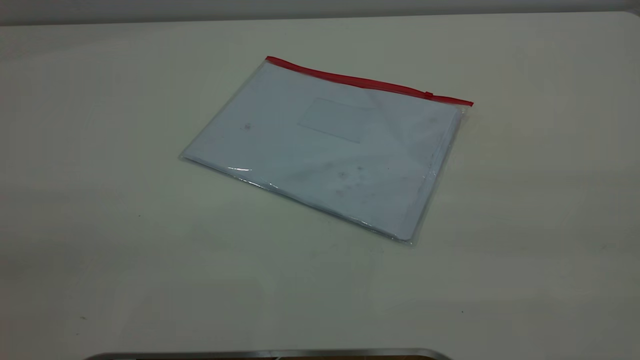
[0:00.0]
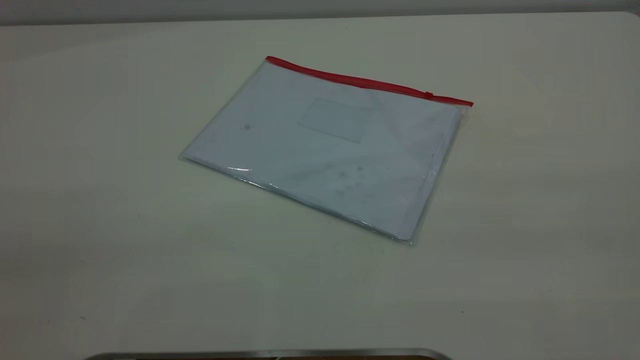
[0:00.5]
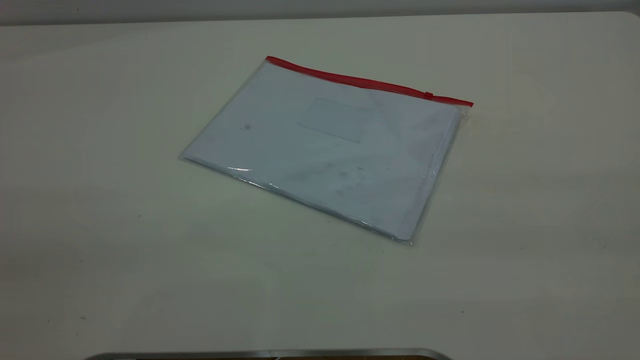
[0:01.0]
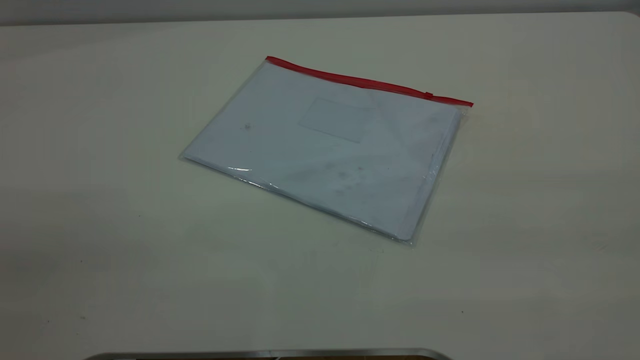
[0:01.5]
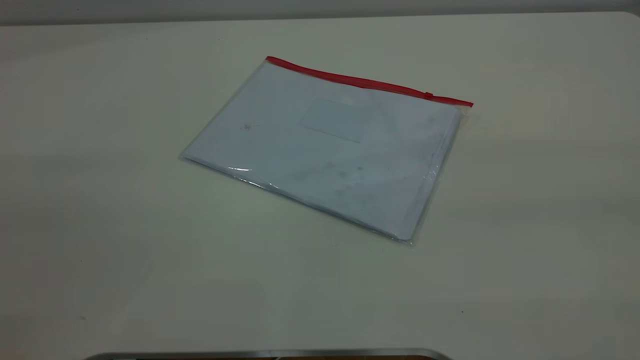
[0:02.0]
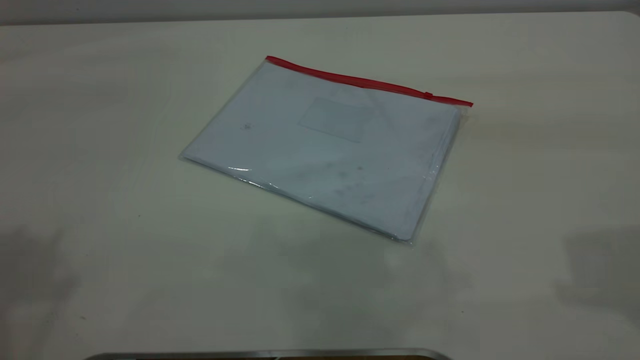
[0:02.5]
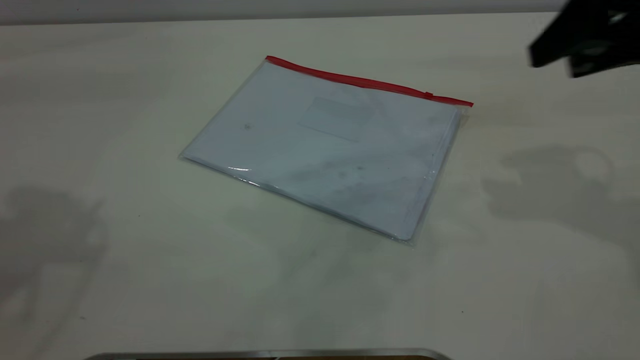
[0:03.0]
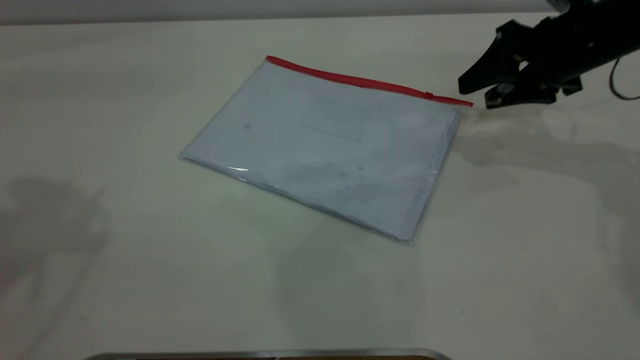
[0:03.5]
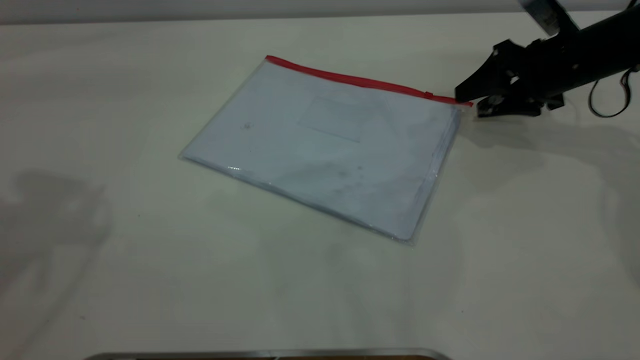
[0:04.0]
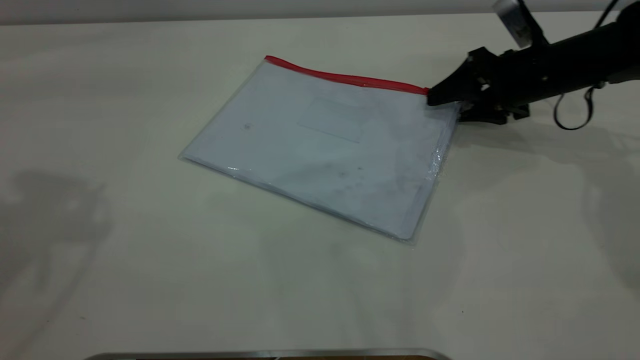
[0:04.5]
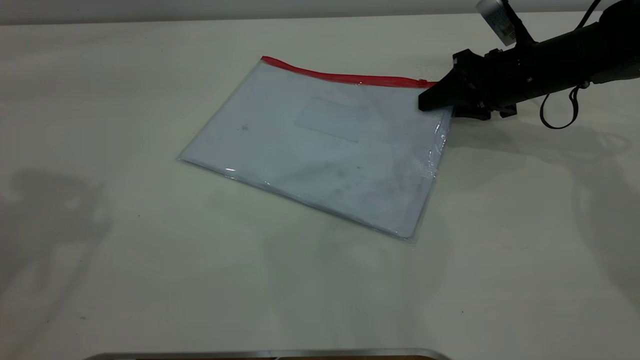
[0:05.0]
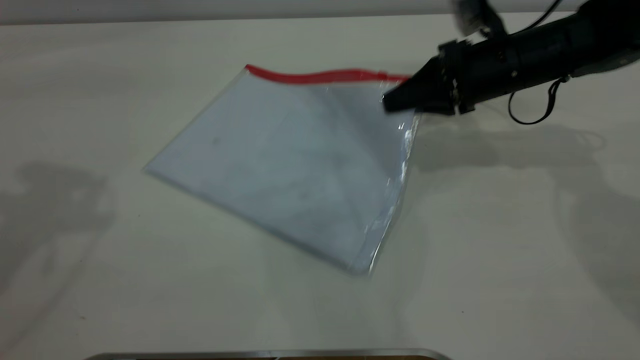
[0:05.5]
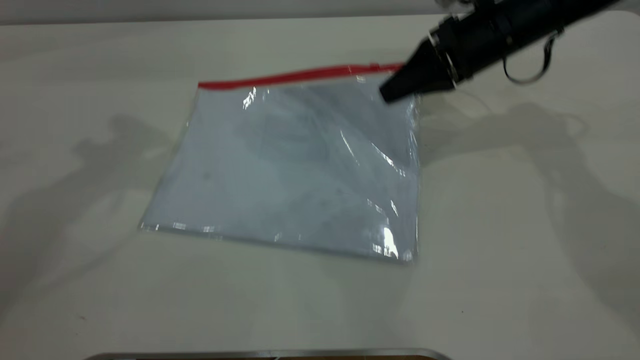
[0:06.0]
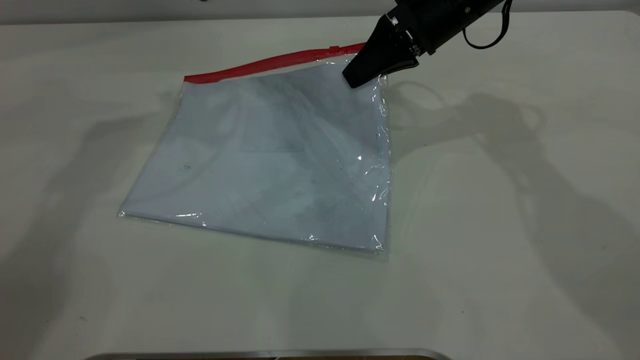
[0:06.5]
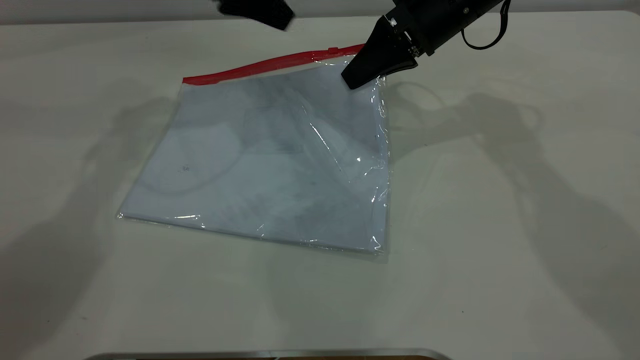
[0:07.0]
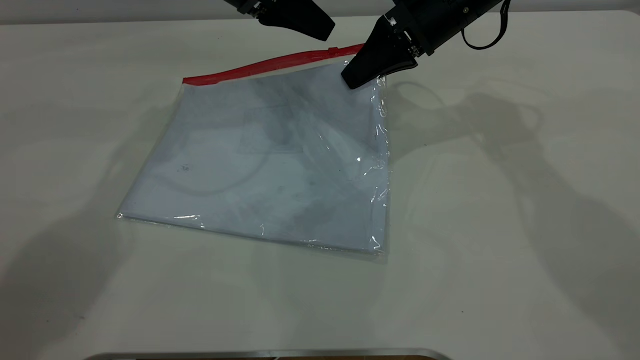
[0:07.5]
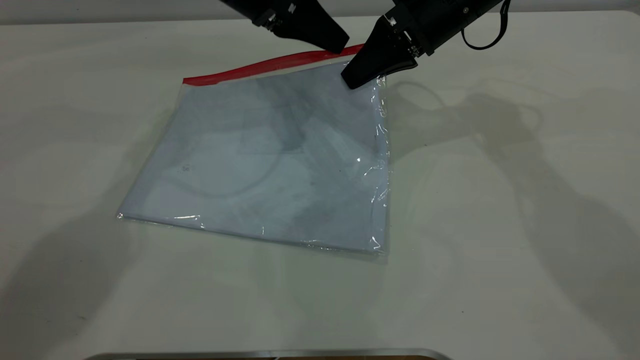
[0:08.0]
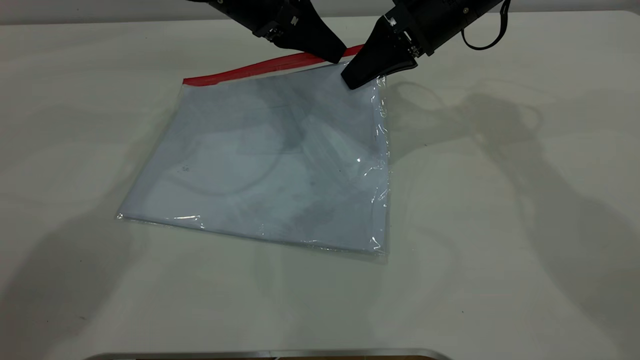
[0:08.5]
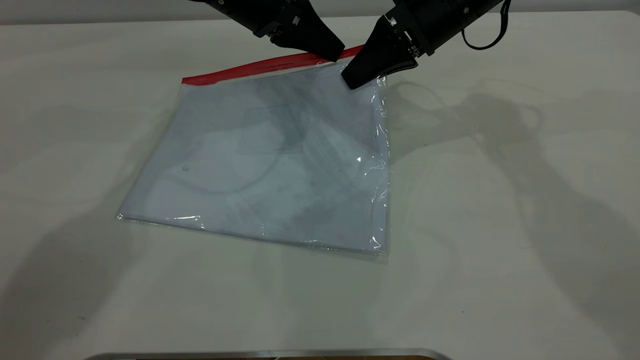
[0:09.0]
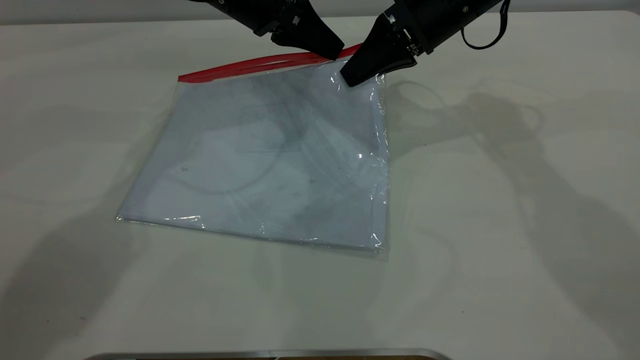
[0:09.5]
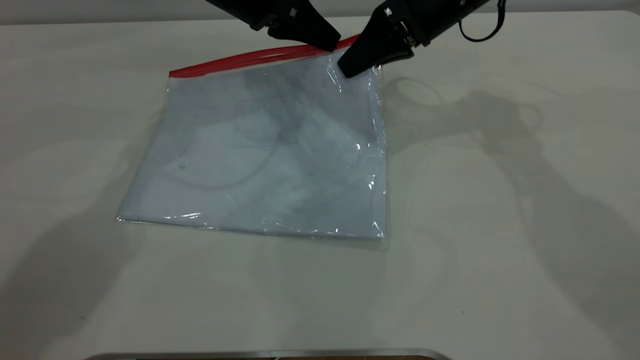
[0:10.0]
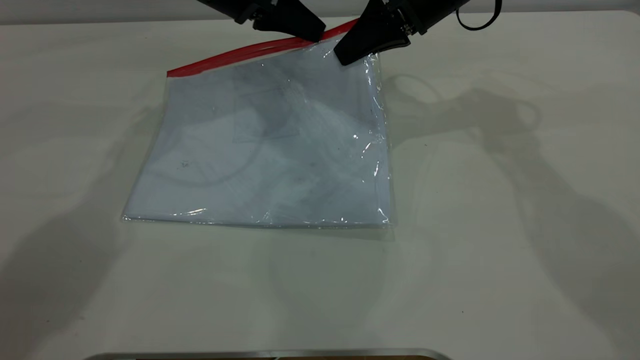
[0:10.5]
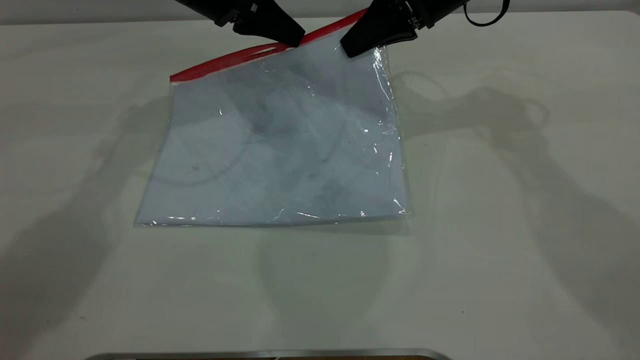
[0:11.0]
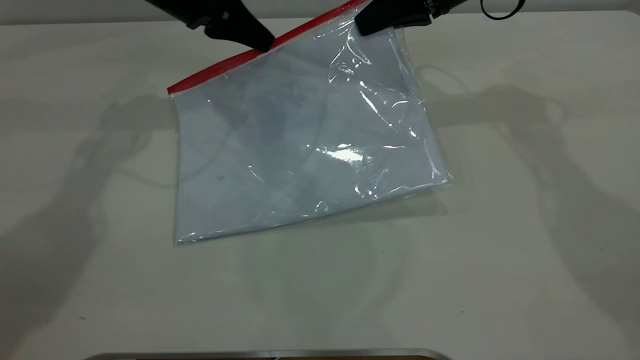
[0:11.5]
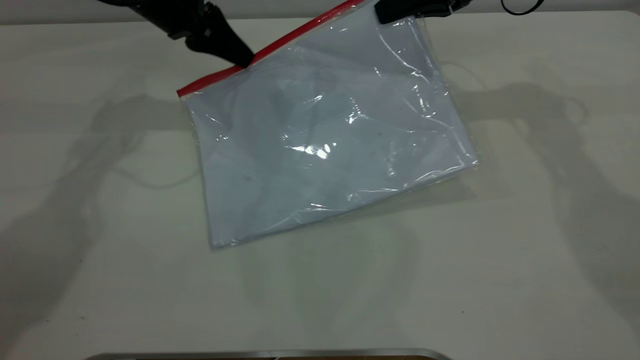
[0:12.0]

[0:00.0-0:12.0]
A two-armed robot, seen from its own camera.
Step, 0:00.0 to 0:06.5: Pick up the transparent plastic bag with the right gripper.
0:02.0 to 0:04.0: The right gripper shifts approximately 50 cm forward and downward.
0:04.0 to 0:06.0: The left gripper travels forward and to the right by about 10 cm. The right gripper shifts approximately 10 cm to the left and upward, and closes its fingers.
0:06.0 to 0:08.0: The left gripper goes some 20 cm downward, to the right and forward.
0:08.0 to 0:10.0: The left gripper closes.
0:10.0 to 0:12.0: The left gripper moves to the left, roughly 10 cm. The right gripper shifts about 5 cm to the right.

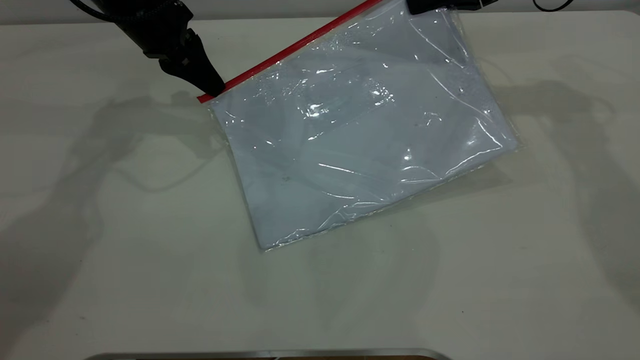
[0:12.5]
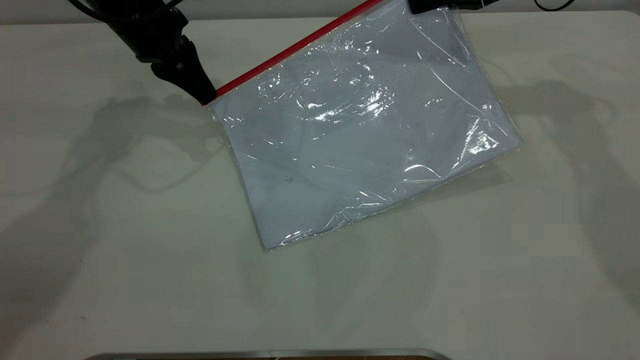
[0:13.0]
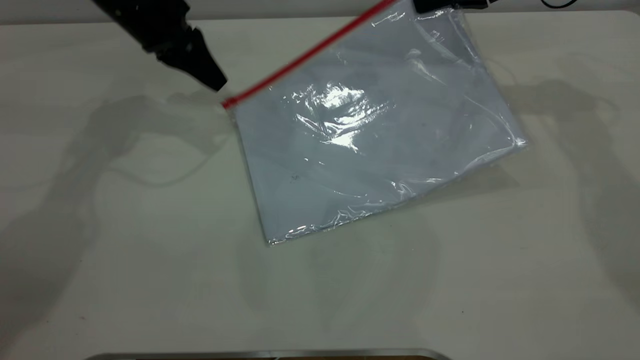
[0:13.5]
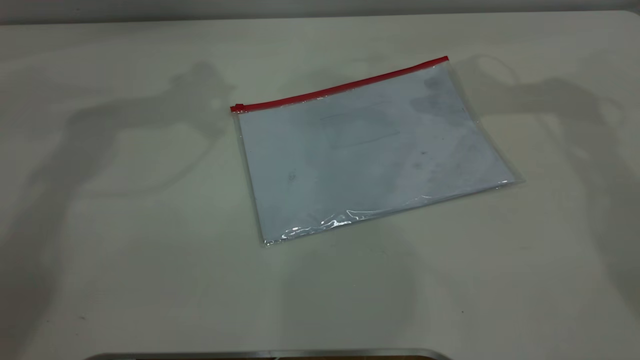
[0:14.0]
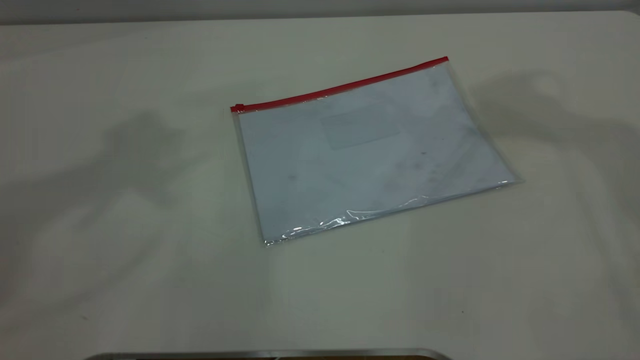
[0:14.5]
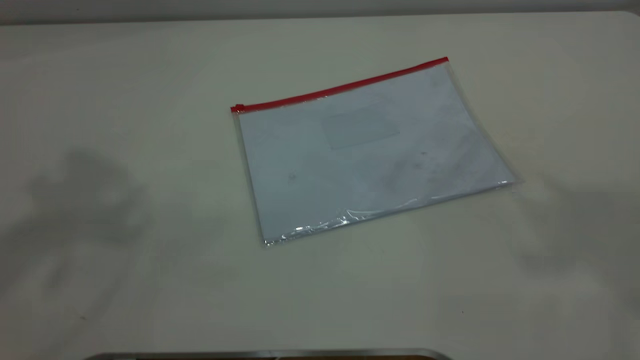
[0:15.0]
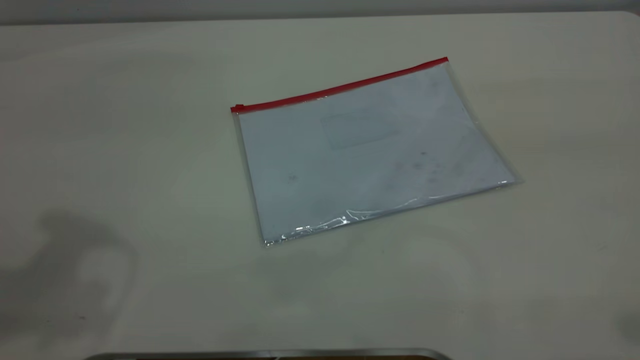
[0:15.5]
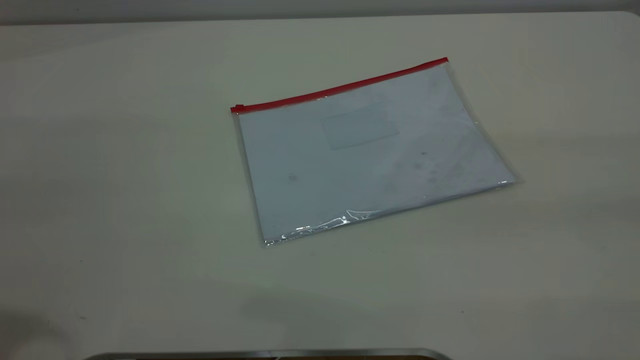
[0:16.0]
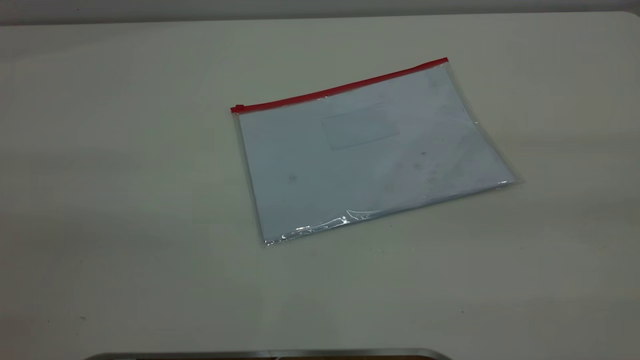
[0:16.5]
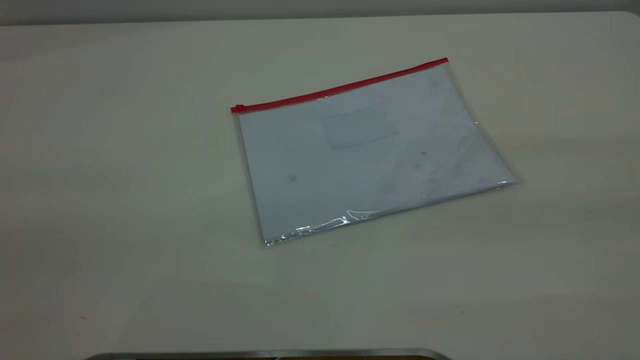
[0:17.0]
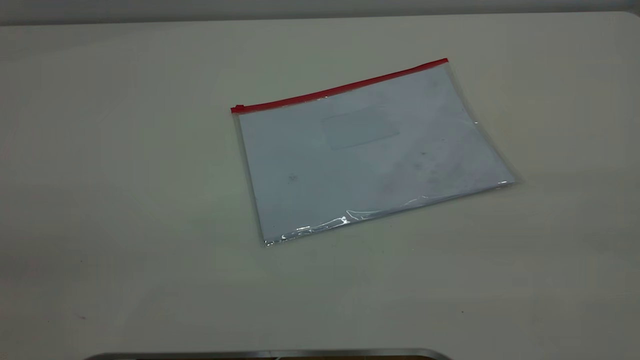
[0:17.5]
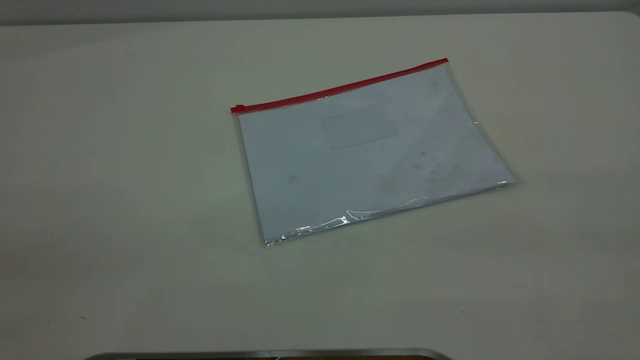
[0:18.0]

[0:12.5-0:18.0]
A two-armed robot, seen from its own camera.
0:12.5 to 0:14.5: The two grippers go roughly 35 cm upward. The left gripper opens up; the right gripper opens.

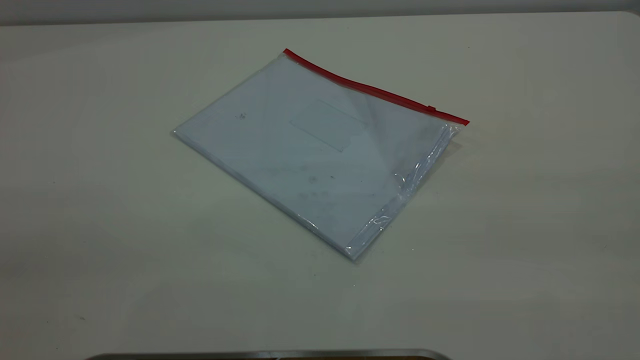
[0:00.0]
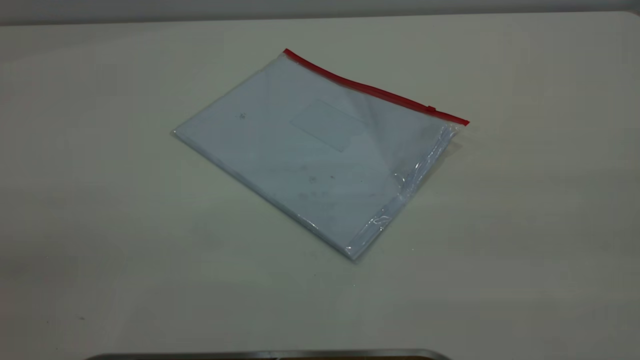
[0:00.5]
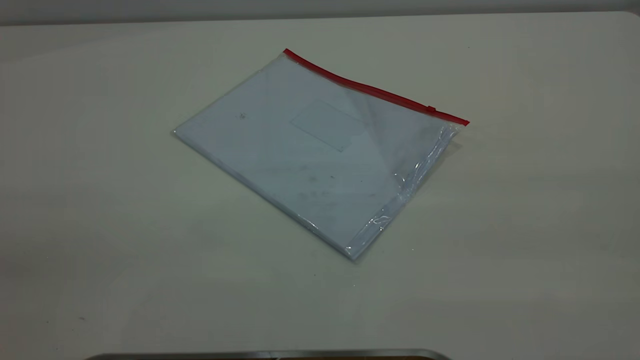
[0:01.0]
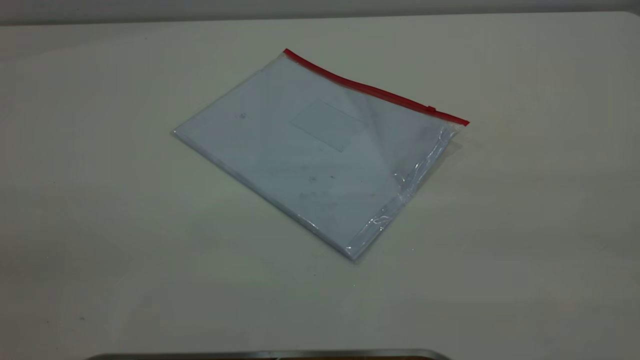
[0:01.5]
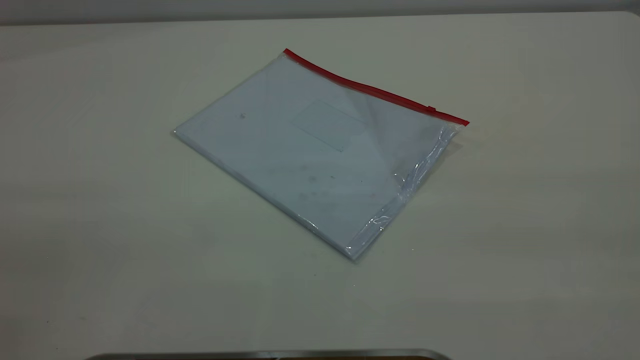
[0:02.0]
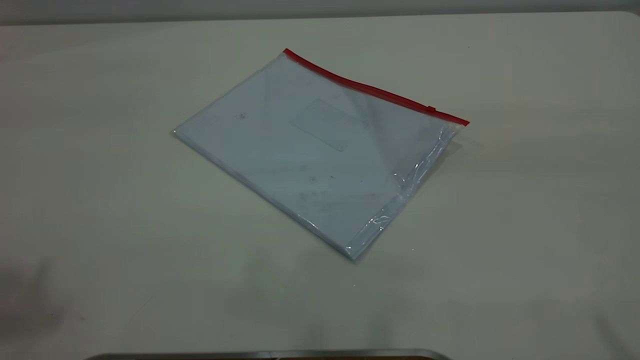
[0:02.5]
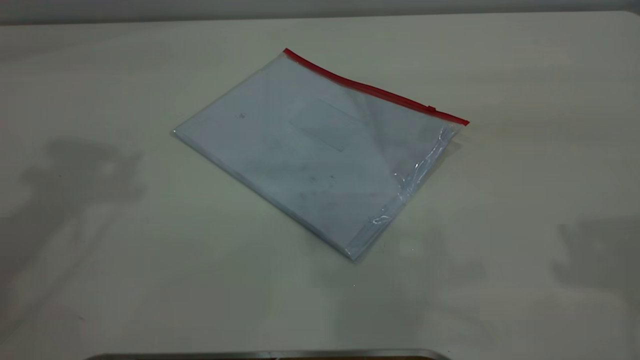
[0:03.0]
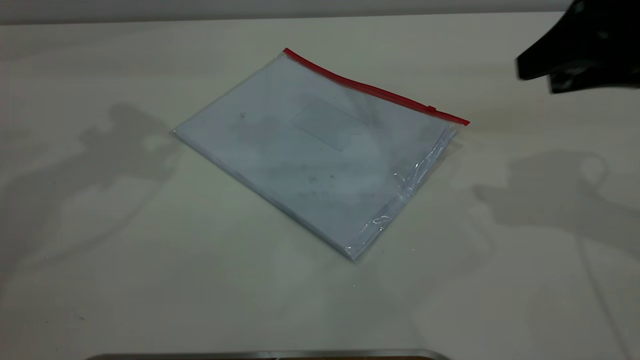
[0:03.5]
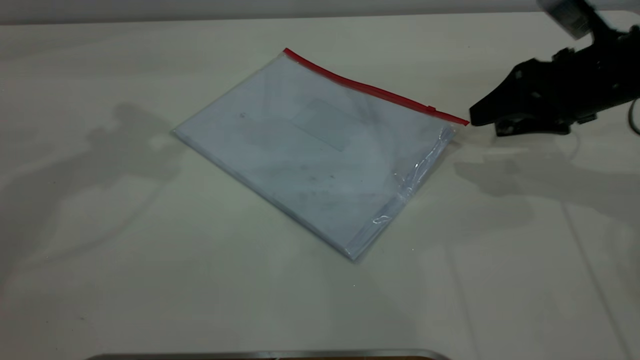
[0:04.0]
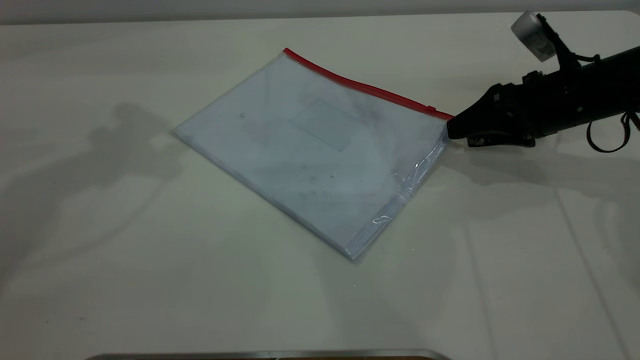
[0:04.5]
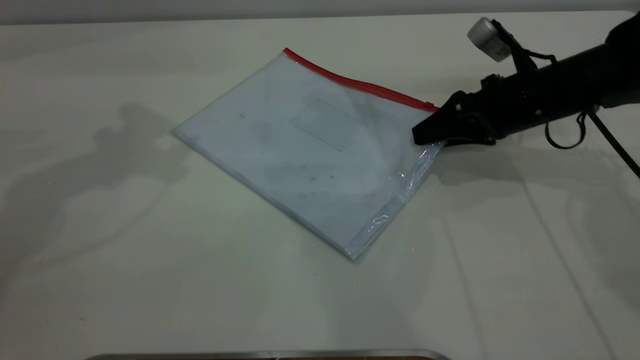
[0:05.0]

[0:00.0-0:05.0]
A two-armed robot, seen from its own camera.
0:02.5 to 0:05.0: The right gripper travels downward and forward by roughly 40 cm. The left gripper is displaced forward and downward by about 25 cm.
